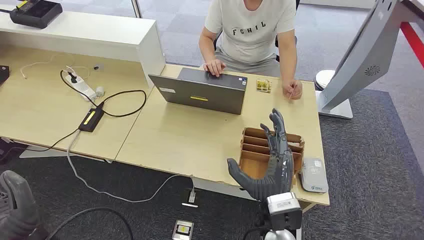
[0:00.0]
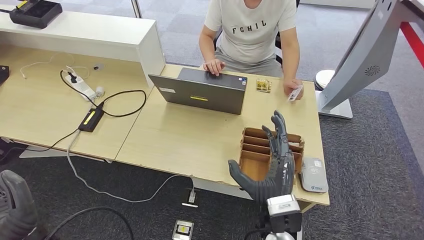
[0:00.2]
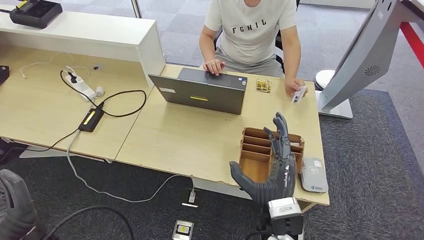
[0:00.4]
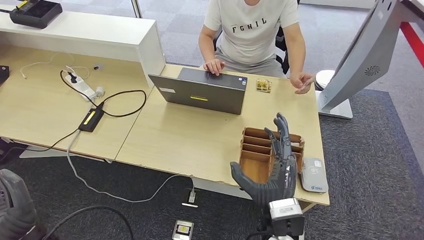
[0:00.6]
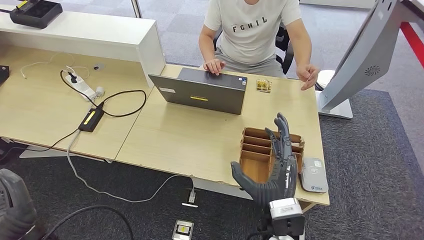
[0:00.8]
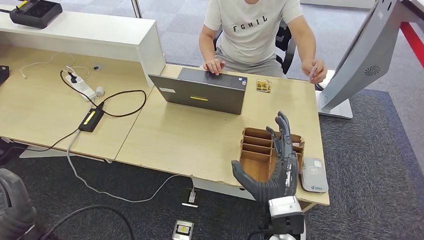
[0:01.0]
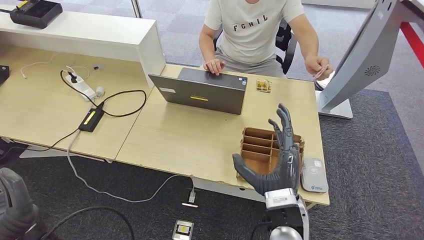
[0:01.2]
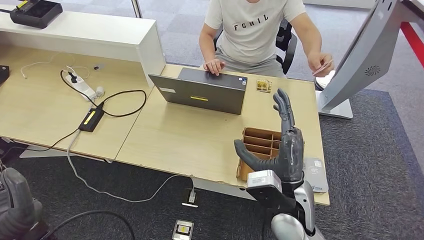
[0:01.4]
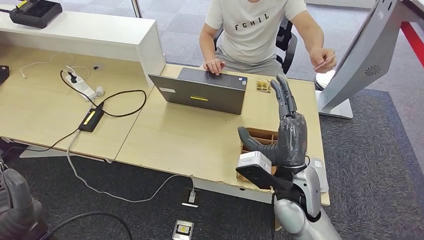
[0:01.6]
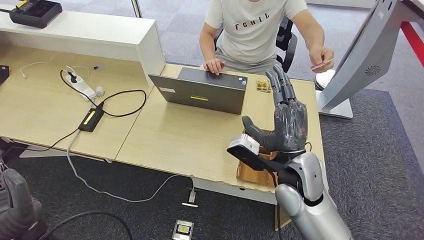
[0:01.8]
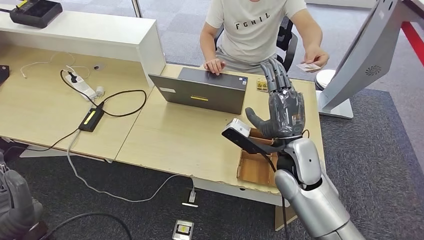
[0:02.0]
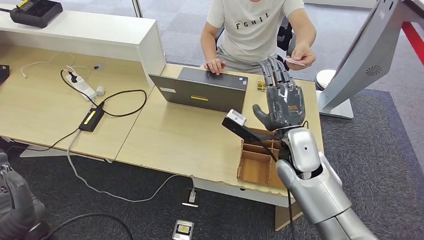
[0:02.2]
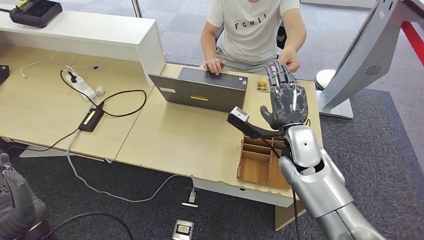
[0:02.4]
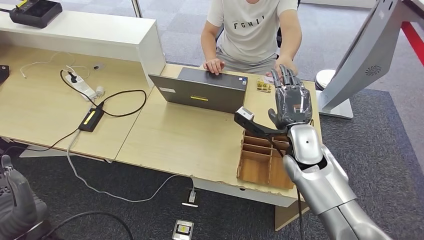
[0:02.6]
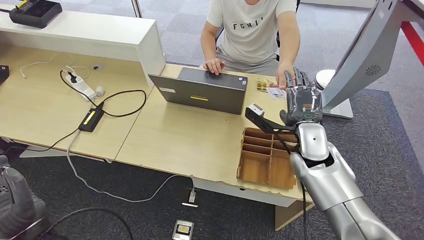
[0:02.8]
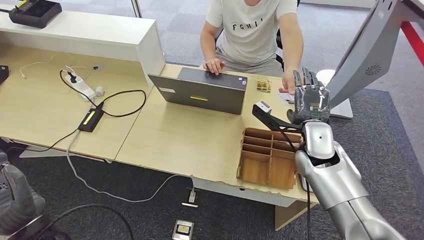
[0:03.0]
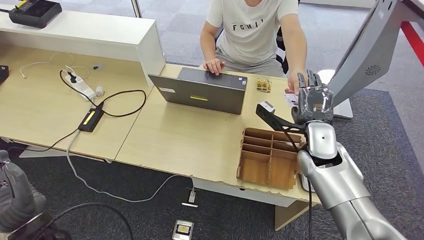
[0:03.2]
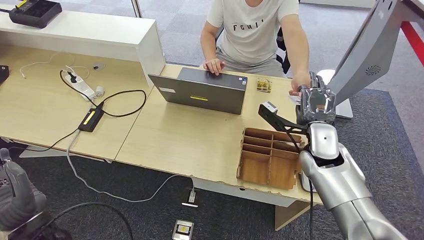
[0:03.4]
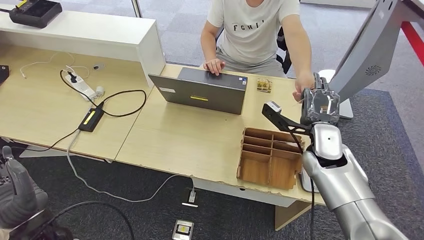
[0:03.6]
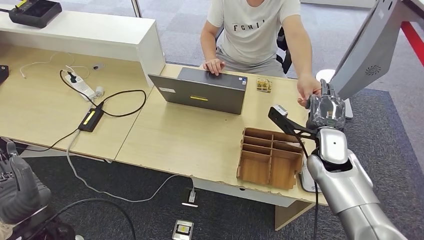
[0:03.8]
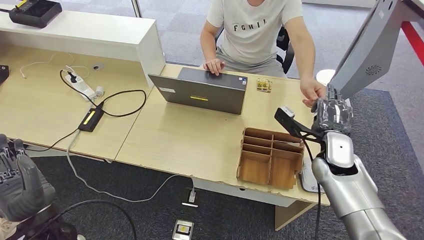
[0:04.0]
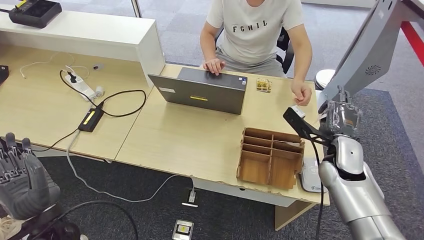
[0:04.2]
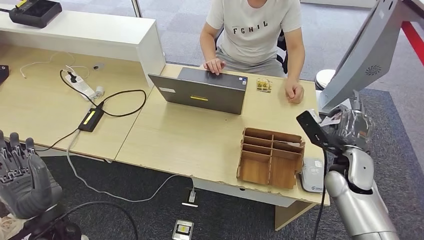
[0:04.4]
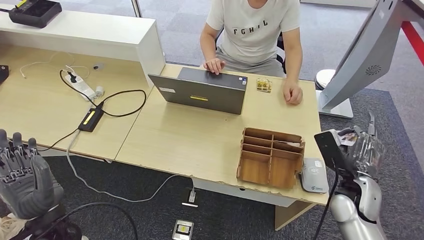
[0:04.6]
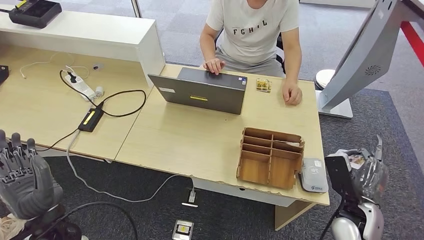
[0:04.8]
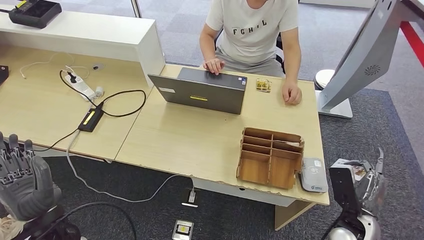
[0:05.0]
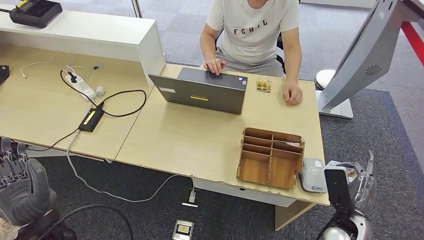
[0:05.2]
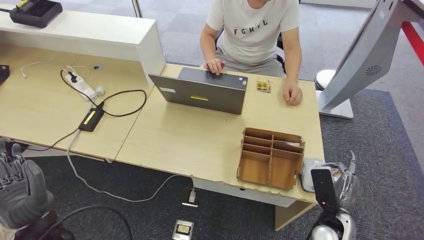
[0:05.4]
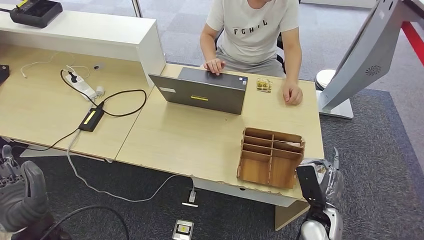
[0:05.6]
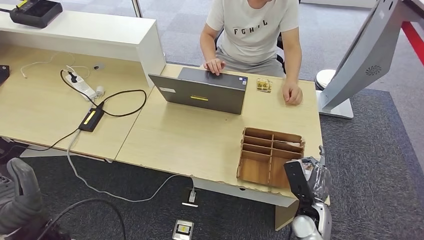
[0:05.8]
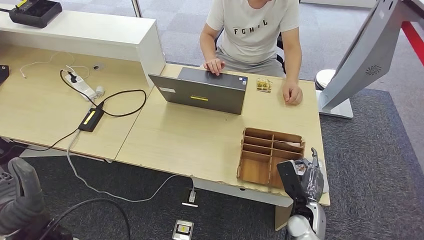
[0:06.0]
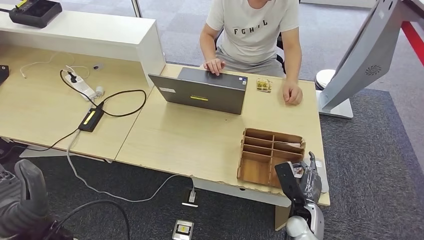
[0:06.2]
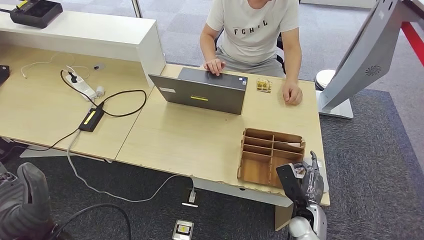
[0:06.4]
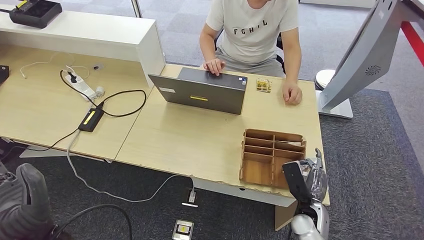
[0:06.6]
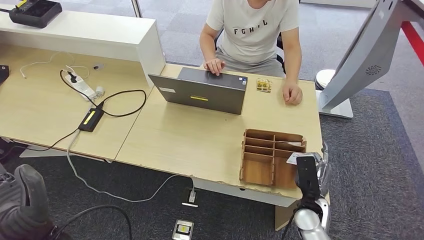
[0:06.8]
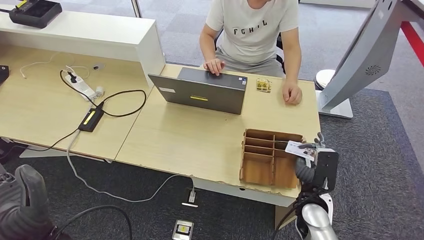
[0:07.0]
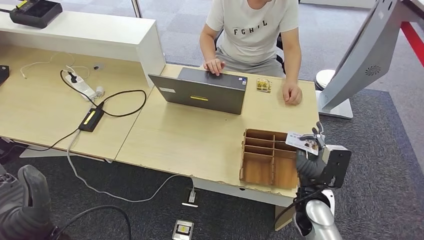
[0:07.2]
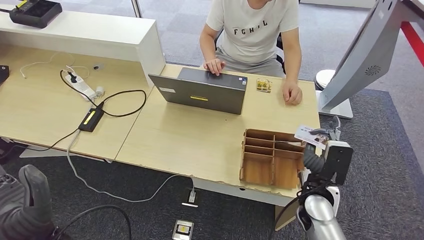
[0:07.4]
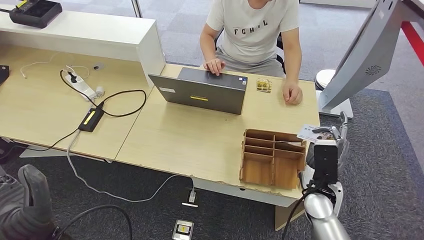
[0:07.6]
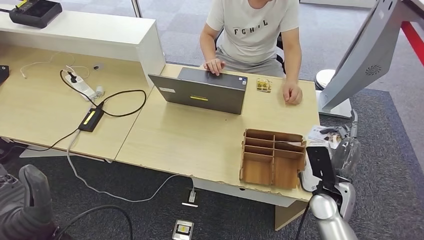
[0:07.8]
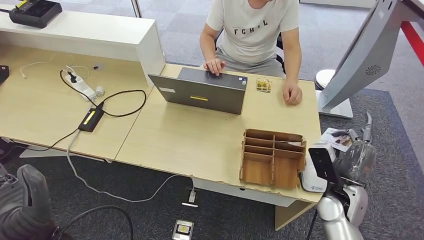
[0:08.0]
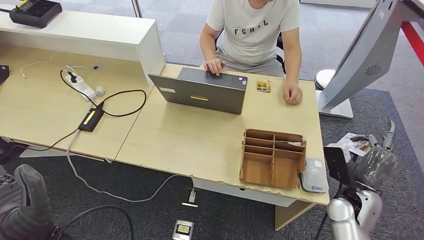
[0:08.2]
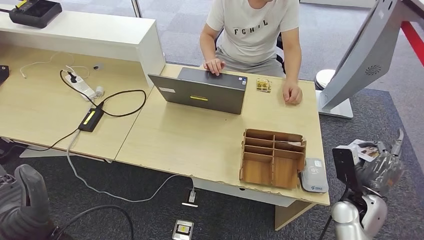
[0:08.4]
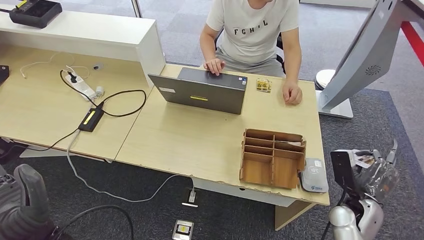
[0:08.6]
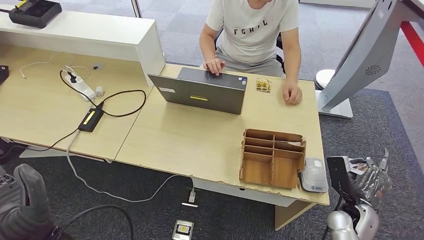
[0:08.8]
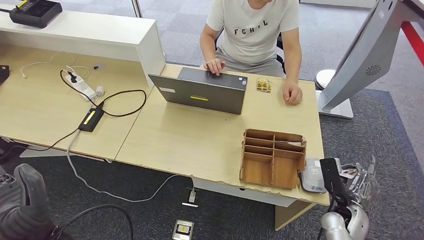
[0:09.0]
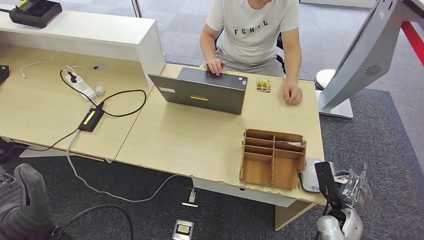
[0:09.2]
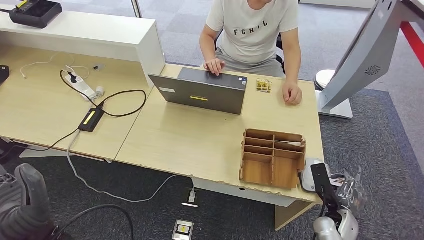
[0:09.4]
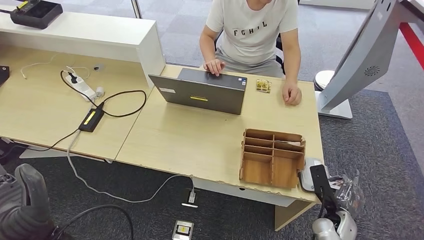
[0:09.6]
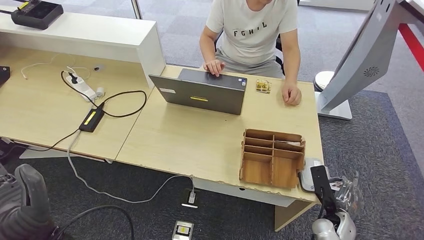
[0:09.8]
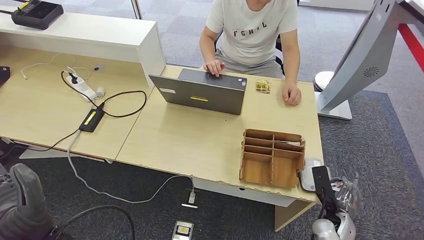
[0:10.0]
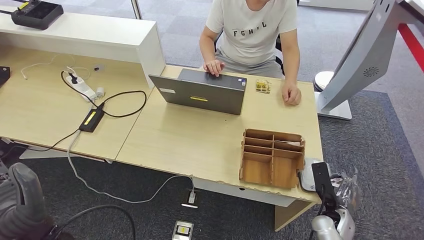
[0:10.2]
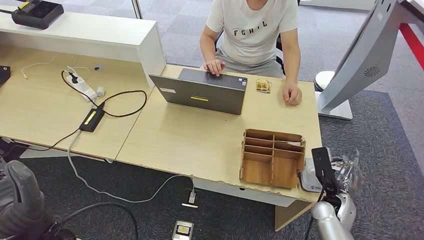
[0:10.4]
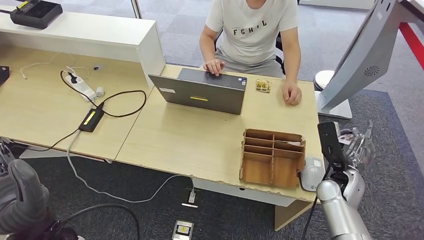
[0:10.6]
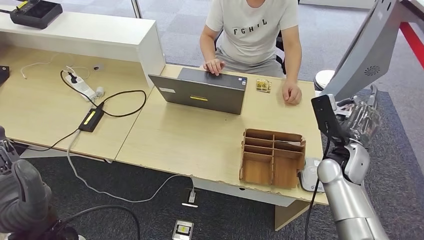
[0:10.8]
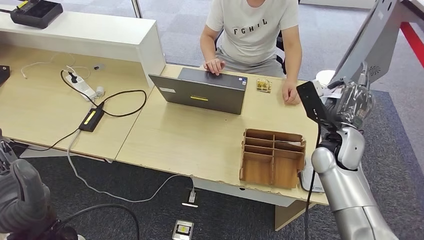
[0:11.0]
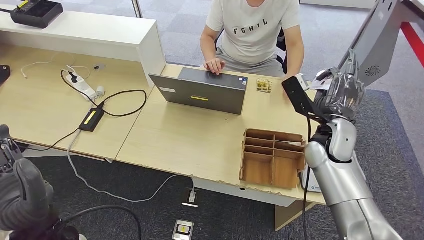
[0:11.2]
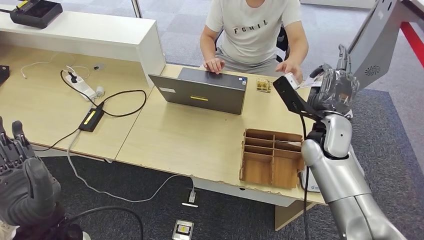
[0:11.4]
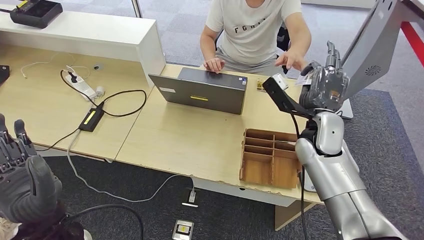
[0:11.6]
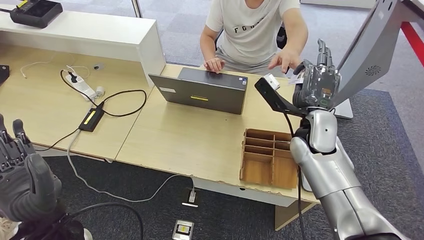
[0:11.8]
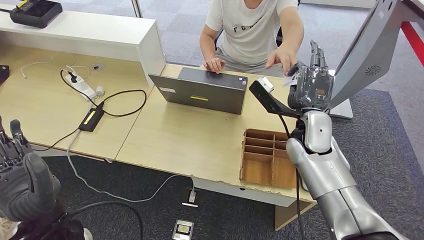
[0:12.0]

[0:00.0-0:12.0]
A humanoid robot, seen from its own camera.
Step, 0.0 to 4.2 s: Take the ID card from the person's hand.
Step, 4.6 to 10.4 s: Place the ID card on the card reader.
1.6 to 3.0 s: The right hand is displaced forward and to the right by some 15 cm.
3.0 to 4.4 s: The right hand heads to the right, covering some 10 cm.
4.4 to 6.0 s: The right hand shifts about 15 cm downward and backward.
6.0 to 7.6 s: The right hand shifts roughly 10 cm upward.
7.6 to 9.0 s: The right hand heads to the right and downward, covering about 10 cm.
9.0 to 10.4 s: The hands make only small movements.
10.4 to 12.0 s: The right hand shifts about 25 cm upward, to the left and forward.

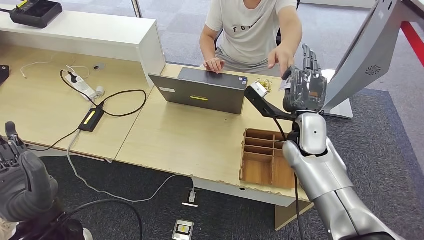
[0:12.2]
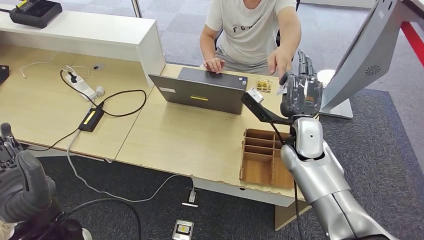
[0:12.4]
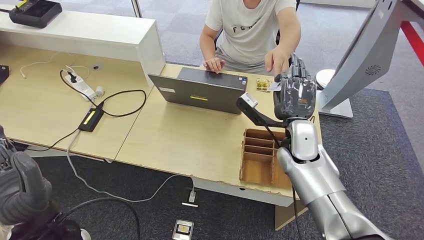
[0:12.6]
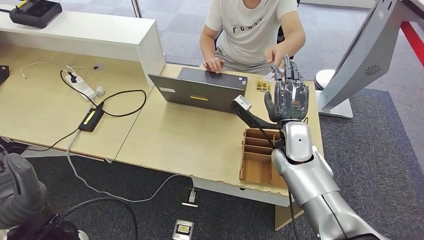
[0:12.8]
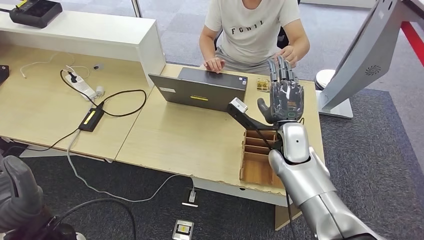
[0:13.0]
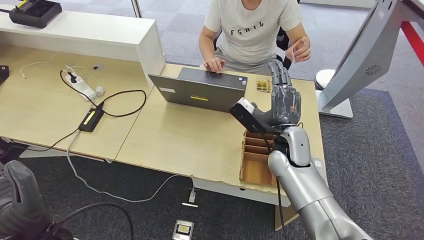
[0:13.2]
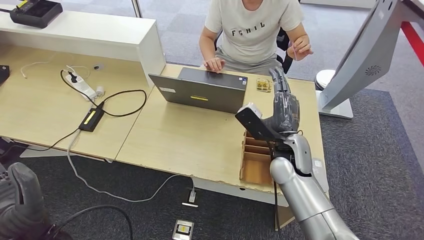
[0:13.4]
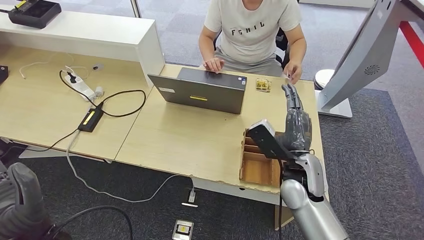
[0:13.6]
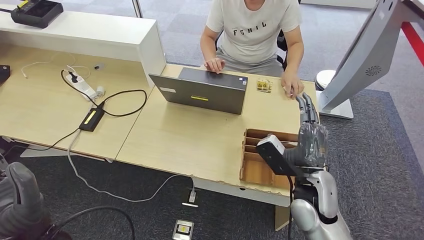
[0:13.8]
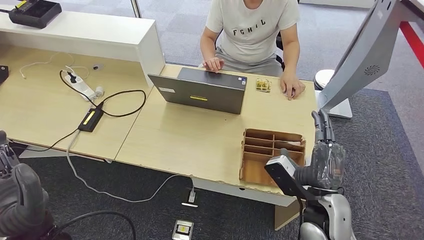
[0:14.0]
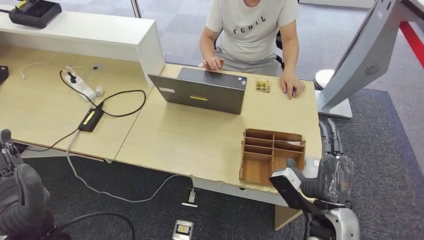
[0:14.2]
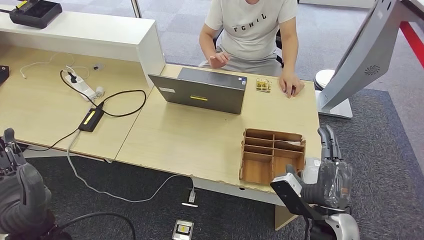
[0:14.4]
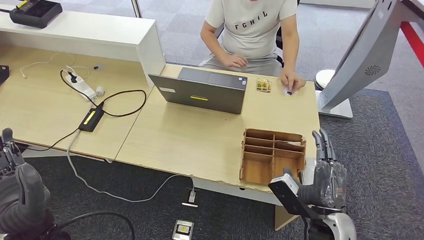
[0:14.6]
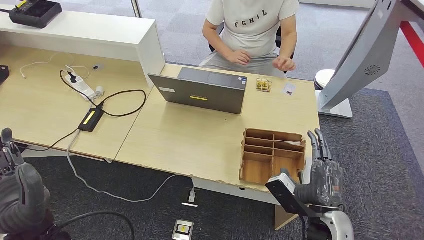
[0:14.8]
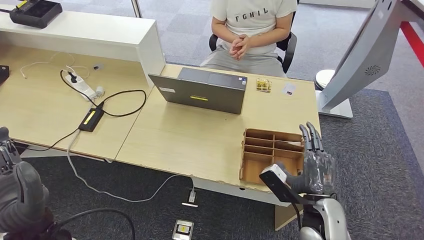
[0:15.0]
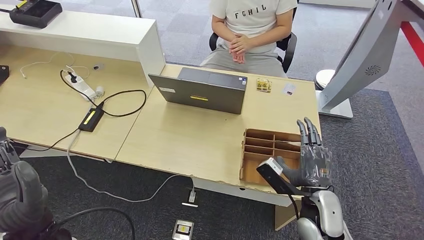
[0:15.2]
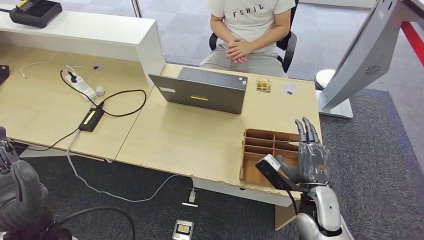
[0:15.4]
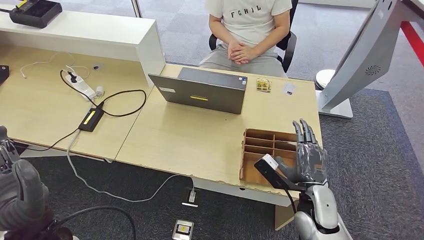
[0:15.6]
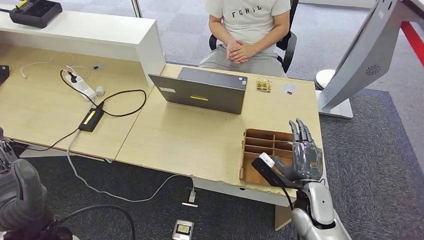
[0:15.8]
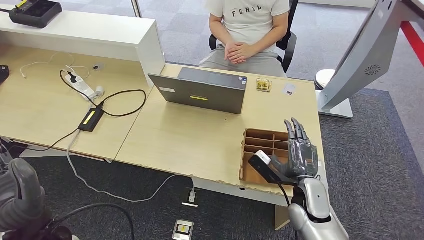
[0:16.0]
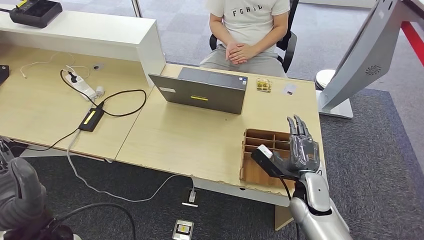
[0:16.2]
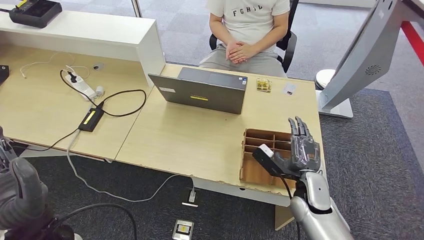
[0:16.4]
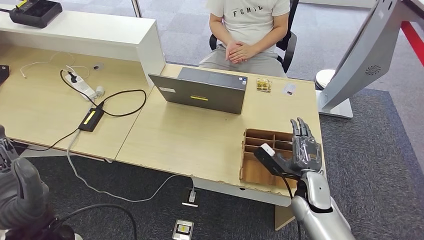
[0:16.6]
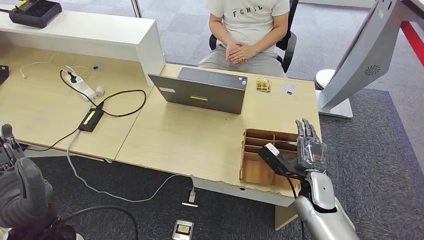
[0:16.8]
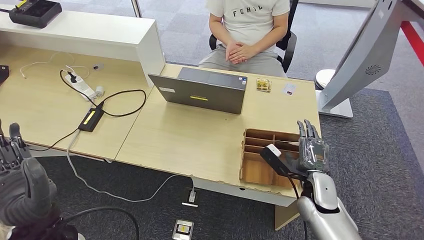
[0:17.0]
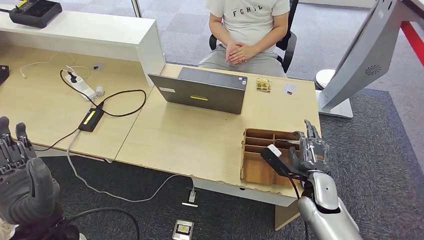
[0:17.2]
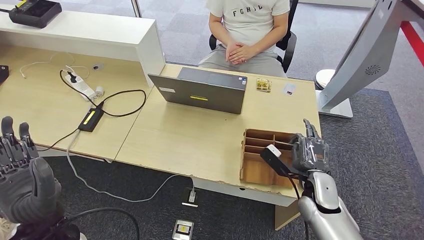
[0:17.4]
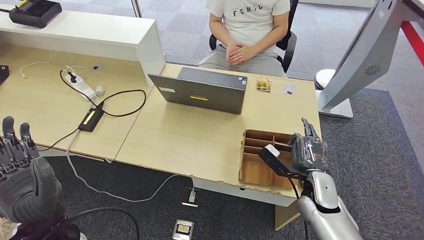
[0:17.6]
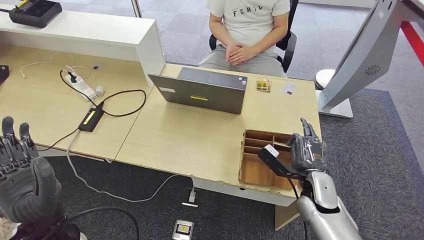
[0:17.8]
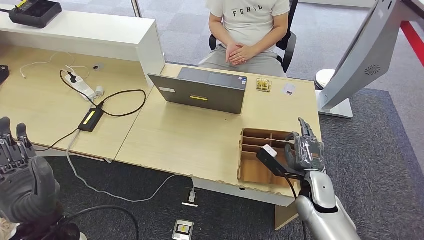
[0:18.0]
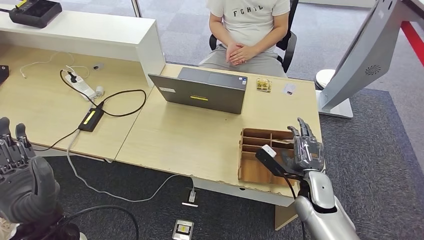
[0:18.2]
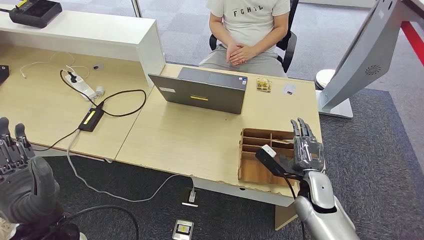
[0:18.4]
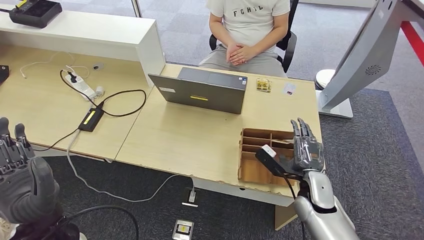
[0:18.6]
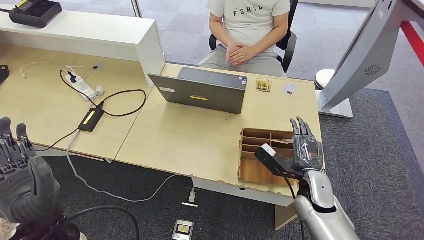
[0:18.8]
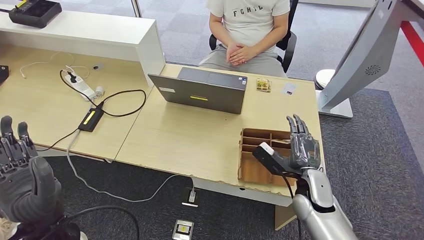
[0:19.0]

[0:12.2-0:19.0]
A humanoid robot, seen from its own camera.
12.2 to 13.6 s: The right hand heads backward and downward, covering about 10 cm.
13.6 to 15.0 s: The right hand travels backward, to the right and downward by approximately 15 cm.
15.0 to 16.2 s: The right hand travels forward by some 10 cm.
16.2 to 19.0 s: The hands stay close to where they were, moving slightly.
